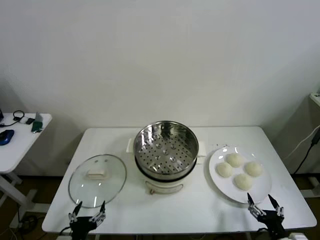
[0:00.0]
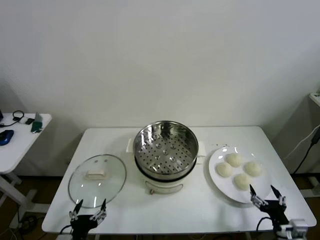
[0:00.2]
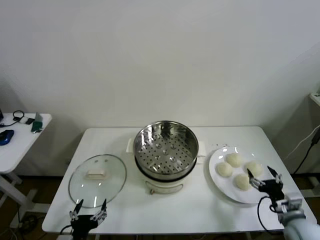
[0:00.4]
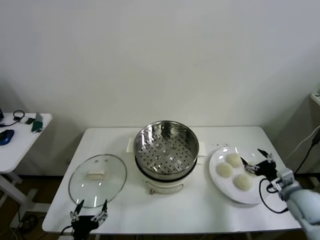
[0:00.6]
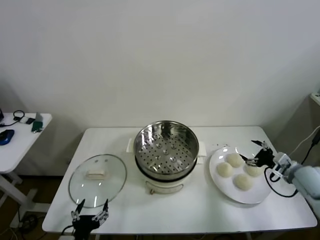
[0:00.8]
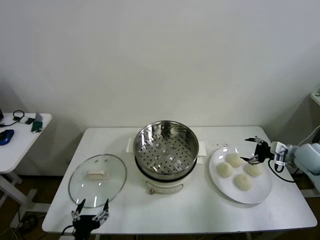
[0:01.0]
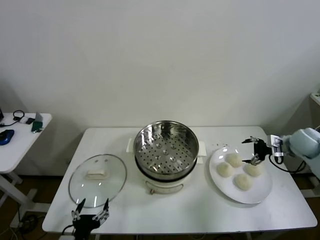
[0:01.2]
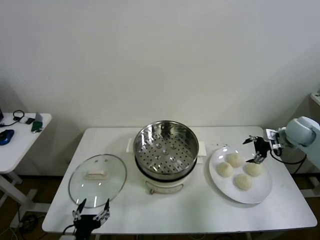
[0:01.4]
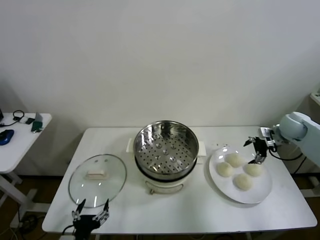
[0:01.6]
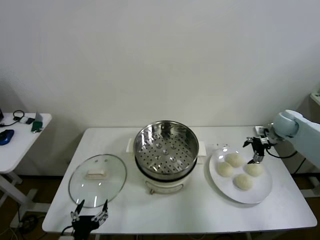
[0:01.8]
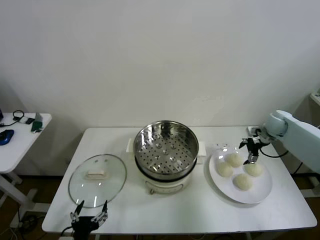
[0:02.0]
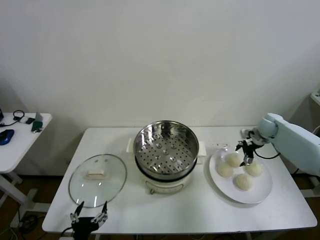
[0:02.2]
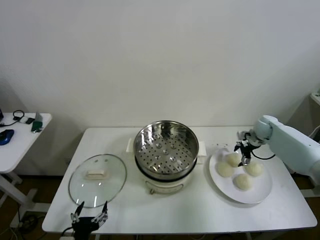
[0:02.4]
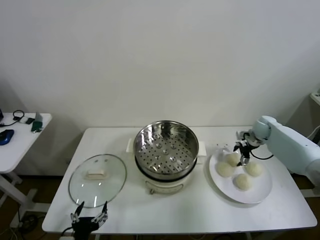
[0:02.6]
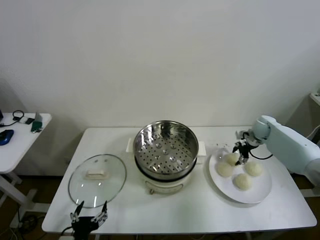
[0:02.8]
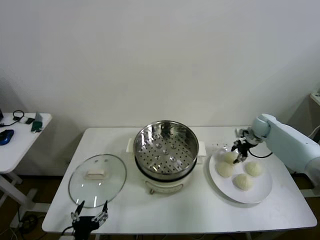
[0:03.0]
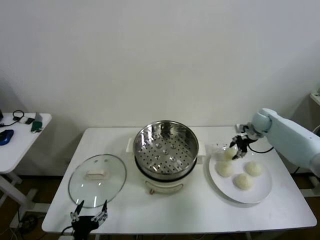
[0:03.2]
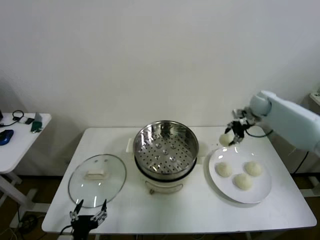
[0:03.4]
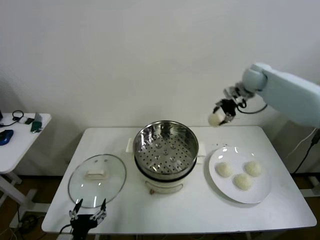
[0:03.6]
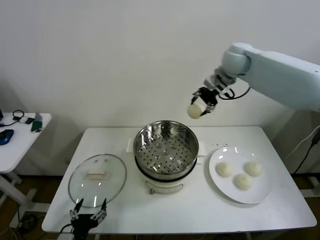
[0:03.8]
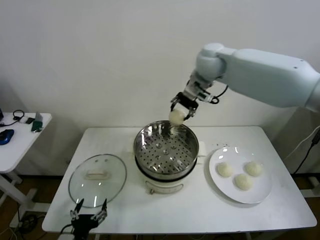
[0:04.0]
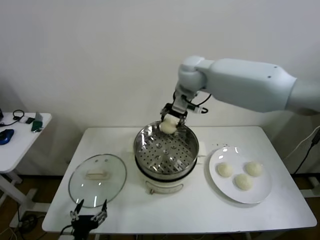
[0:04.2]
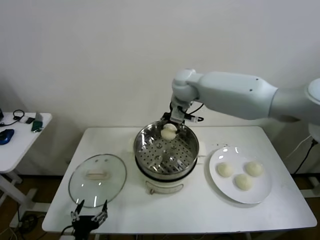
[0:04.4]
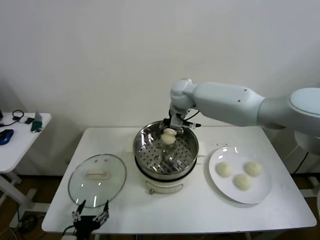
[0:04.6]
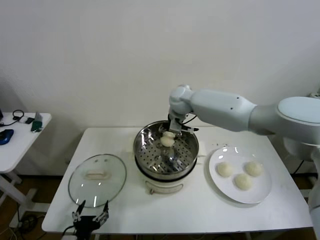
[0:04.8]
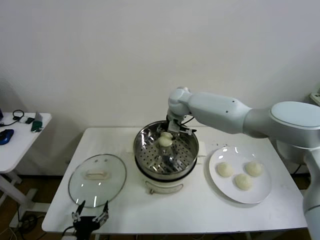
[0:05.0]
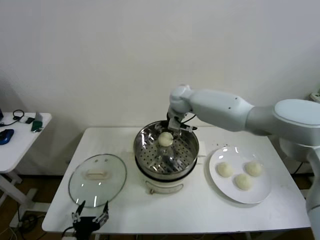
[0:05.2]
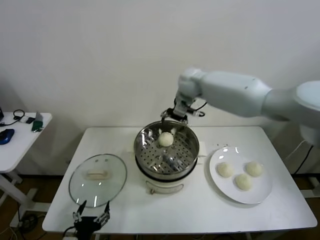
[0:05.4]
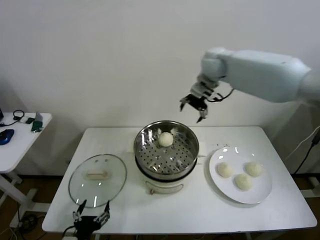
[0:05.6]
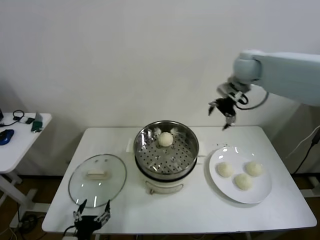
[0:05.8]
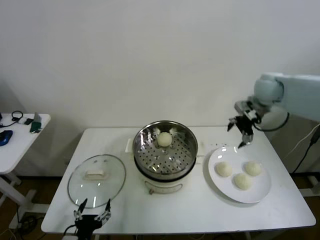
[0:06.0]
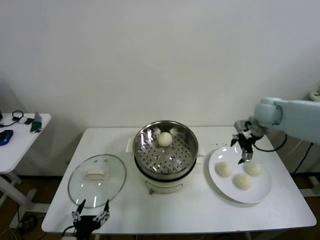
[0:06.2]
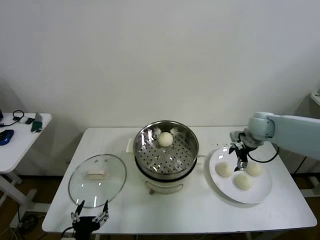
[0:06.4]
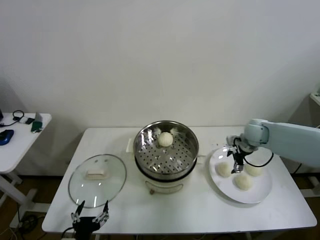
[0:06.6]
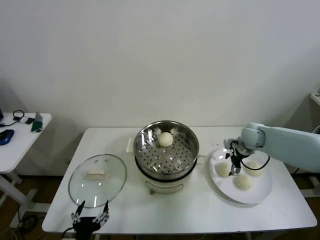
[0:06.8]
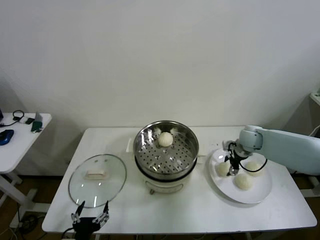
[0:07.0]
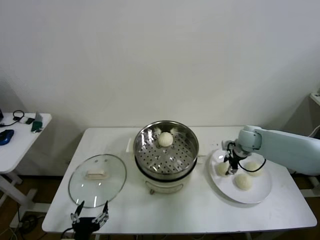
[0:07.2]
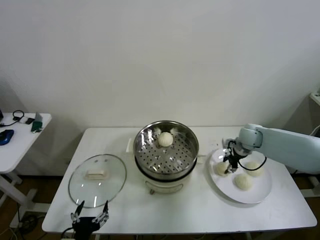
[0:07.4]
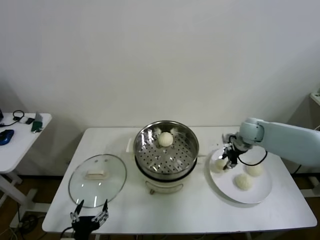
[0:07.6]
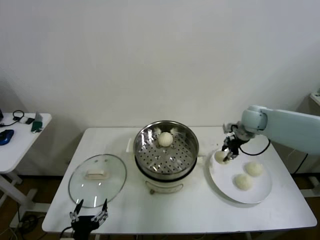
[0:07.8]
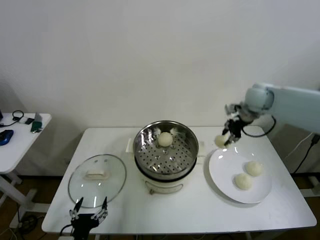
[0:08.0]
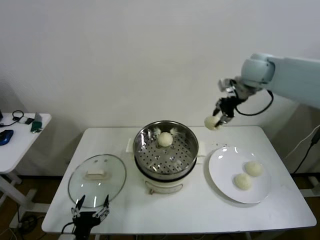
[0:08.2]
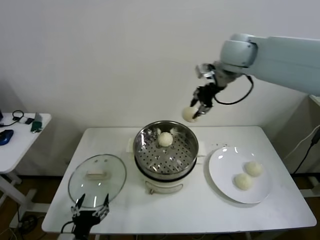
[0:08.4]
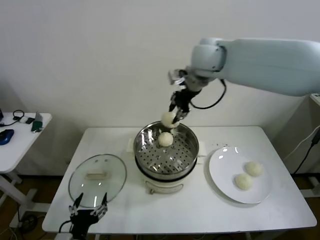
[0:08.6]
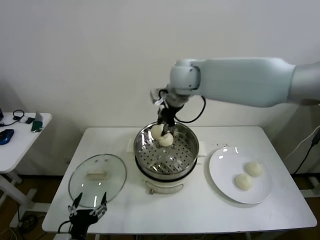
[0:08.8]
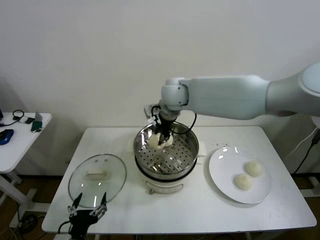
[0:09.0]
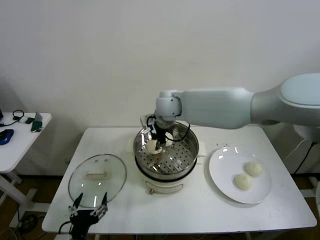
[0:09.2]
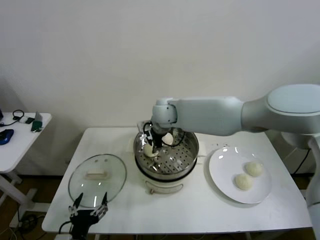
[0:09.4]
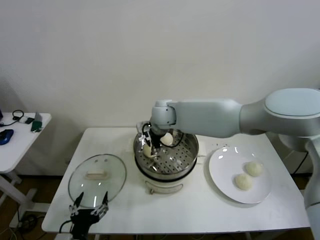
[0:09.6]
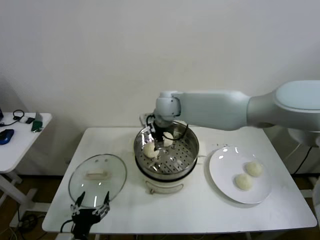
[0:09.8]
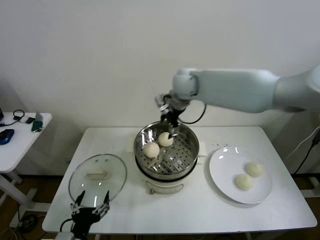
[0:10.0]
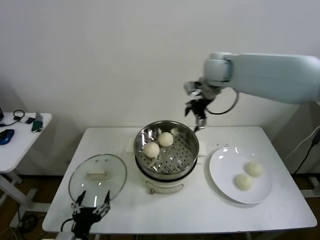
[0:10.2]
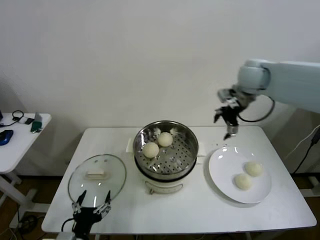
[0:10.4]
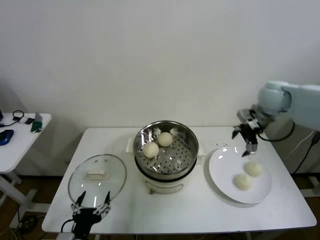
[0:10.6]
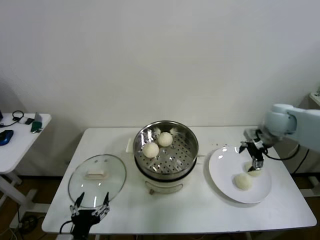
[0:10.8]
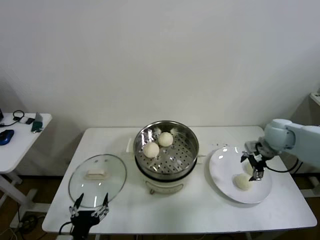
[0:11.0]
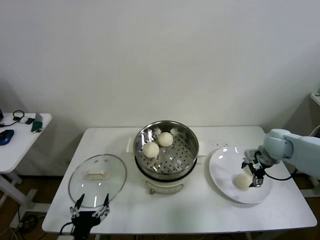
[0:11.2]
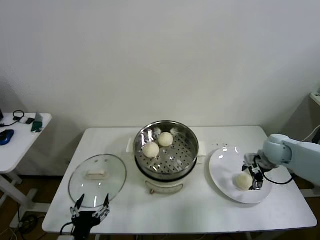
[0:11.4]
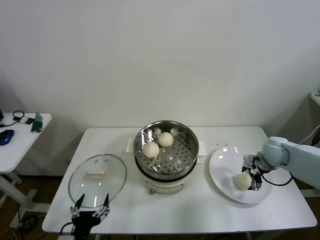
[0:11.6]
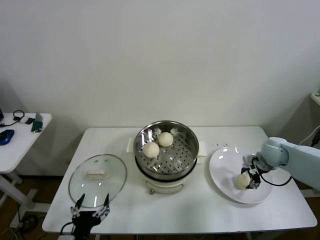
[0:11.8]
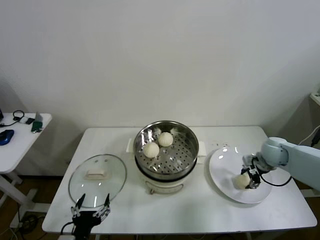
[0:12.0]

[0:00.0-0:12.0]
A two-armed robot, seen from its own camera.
Step, 0:00.0 to 0:02.8: Grasp the baozi in the plate with right gripper.
Step, 0:03.0 to 0:05.2: Place the baozi on the steamer with right gripper.
Step, 0:05.4 to 0:07.2: Grasp the baozi in the plate with right gripper.
Step, 0:07.4 to 0:09.6: Place the baozi on the steamer with right gripper.
Step, 0:09.8 to 0:12.0: Grasp the baozi in the plate with right gripper.
0:01.6 to 0:03.0: The right gripper heads forward and downward, covering some 10 cm, and closes.
0:03.0 to 0:04.4: The right gripper shifts some 40 cm to the left and upward.
0:04.4 to 0:06.0: The right gripper is displaced to the right by about 25 cm, and opens.
0:06.0 to 0:07.6: The right gripper shifts about 15 cm downward, and closes.
0:07.6 to 0:09.0: The right gripper shifts about 35 cm to the left and upward.
0:09.0 to 0:10.4: The right gripper moves to the right, some 25 cm, and opens its fingers.
0:10.4 to 0:12.0: The right gripper shifts about 25 cm downward and to the right, and closes its fingers.

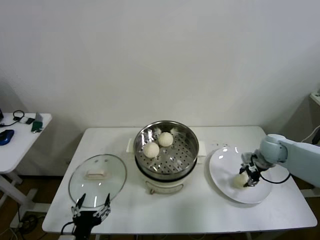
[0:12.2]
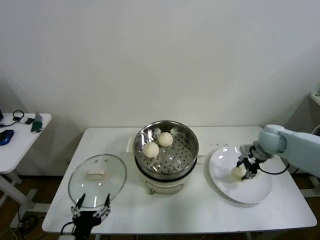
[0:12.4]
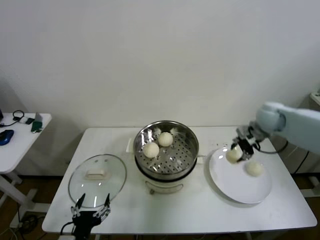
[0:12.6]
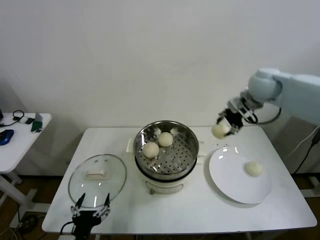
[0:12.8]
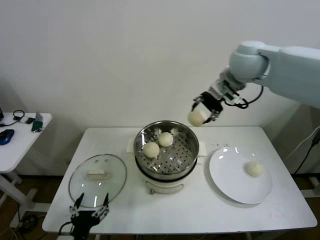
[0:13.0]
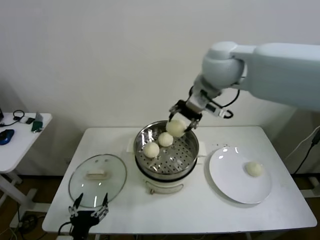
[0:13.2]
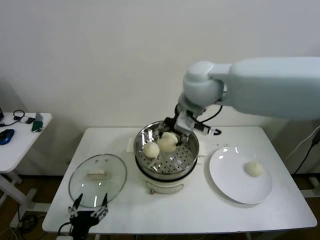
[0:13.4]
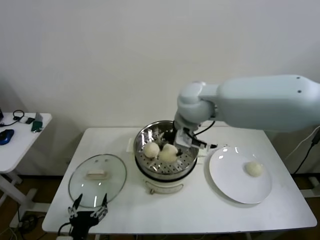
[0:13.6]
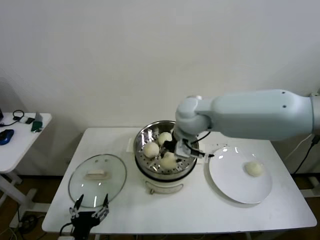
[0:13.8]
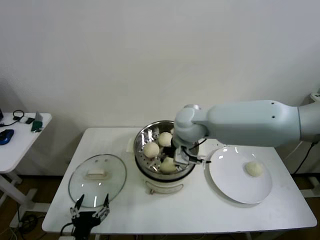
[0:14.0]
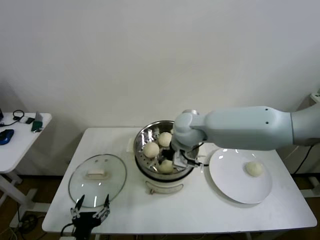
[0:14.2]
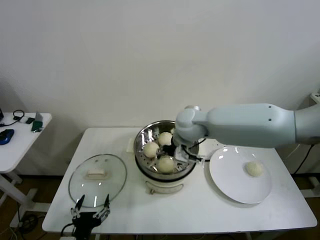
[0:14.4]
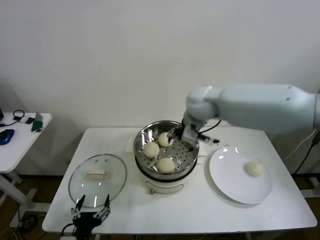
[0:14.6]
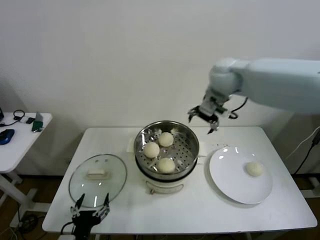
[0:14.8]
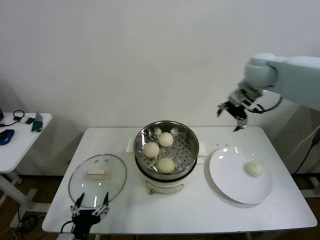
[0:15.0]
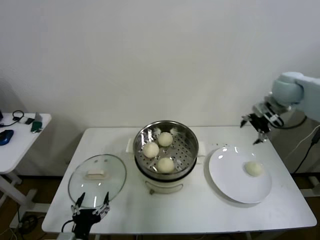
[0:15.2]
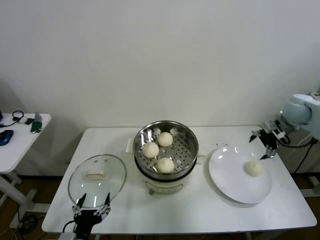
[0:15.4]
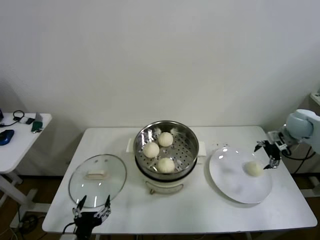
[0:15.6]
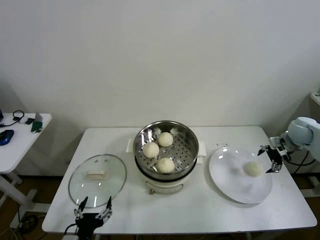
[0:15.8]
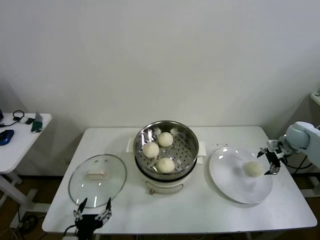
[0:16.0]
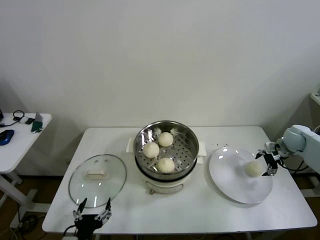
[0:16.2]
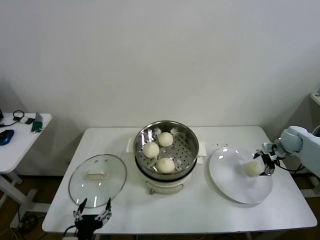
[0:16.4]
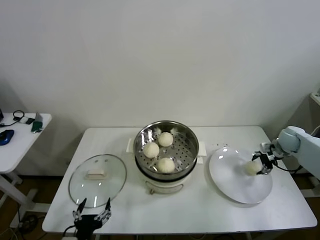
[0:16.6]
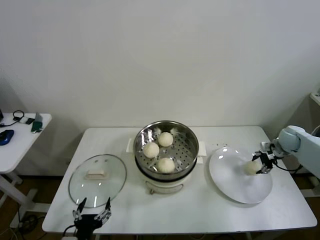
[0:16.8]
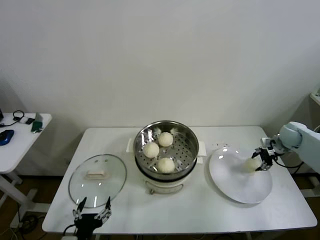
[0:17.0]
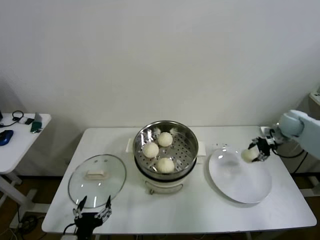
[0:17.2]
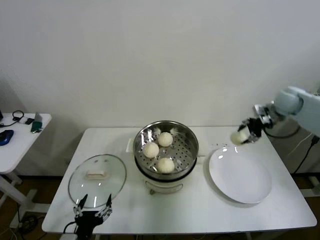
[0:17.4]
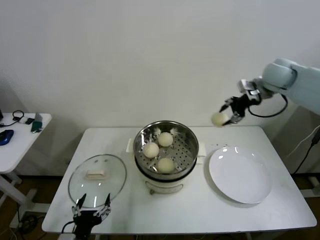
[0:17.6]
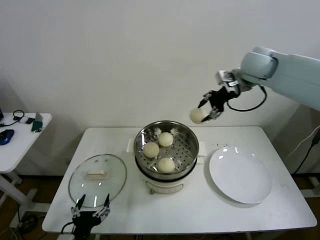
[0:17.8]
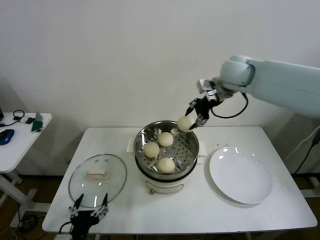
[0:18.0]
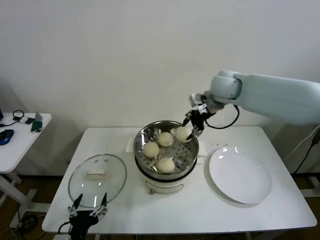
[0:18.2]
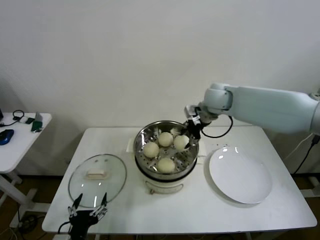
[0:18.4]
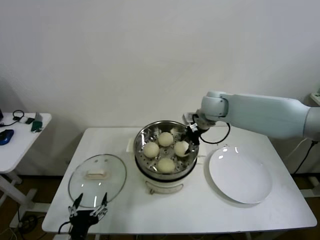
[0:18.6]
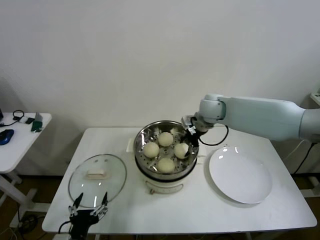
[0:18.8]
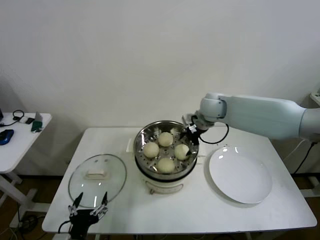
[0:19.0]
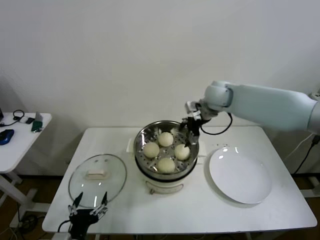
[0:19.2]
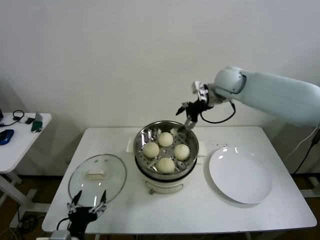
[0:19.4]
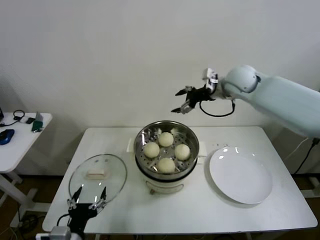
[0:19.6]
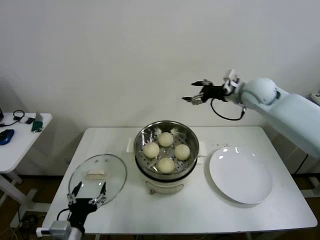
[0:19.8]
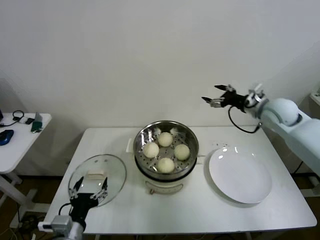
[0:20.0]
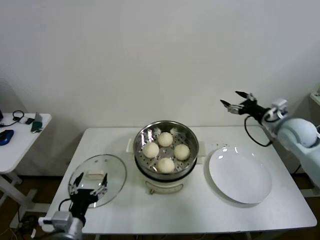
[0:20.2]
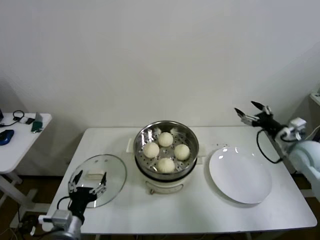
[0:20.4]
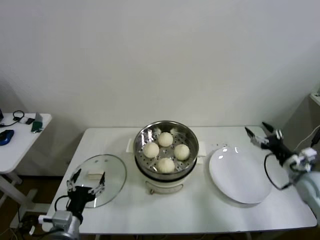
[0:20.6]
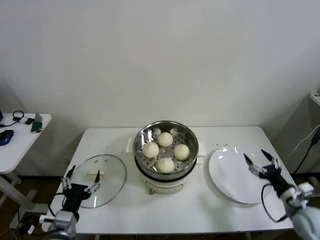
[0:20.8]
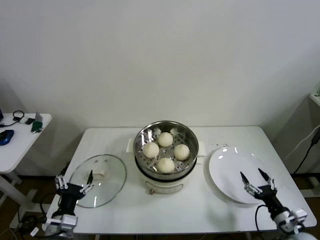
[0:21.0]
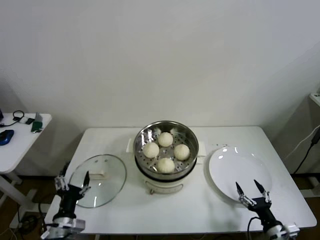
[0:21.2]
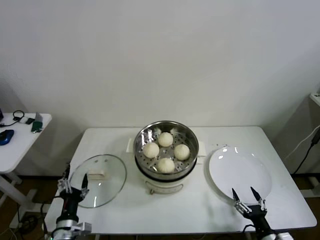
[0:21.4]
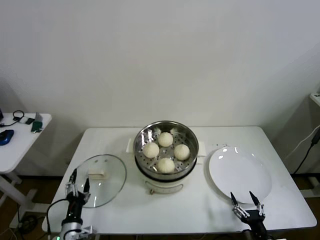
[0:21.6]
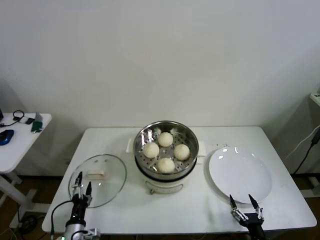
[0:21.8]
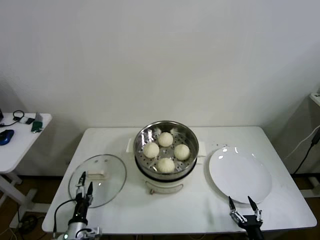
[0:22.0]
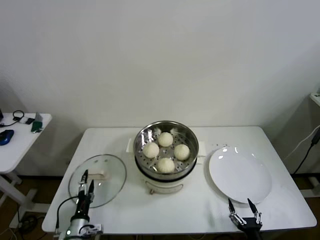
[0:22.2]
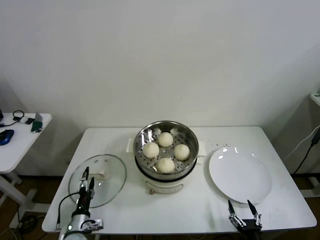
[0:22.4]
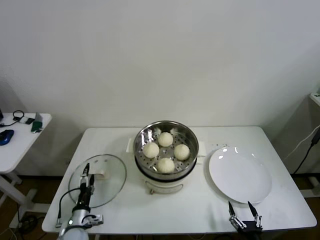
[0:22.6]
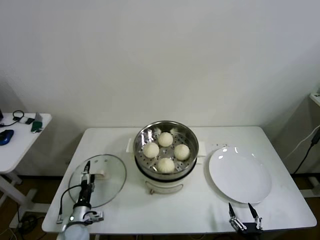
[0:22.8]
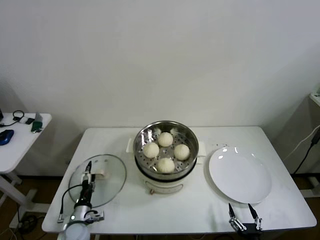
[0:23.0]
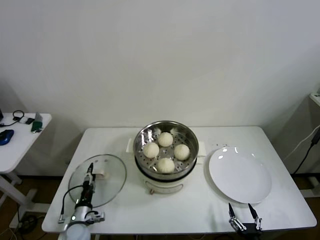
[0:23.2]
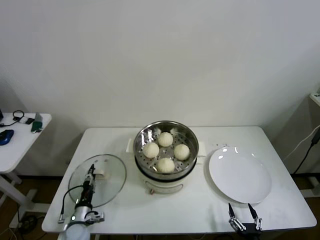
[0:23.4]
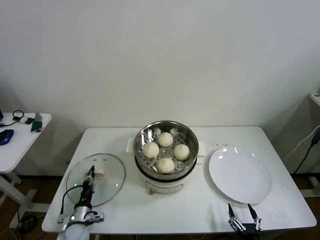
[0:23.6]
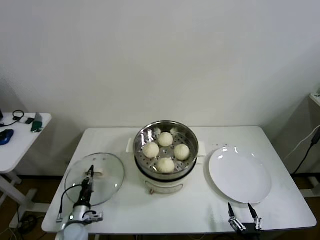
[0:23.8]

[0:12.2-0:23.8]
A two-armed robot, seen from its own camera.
Step, 0:12.2 to 0:14.2: Place the baozi on the steamer with right gripper.
Step, 0:14.4 to 0:16.8: Grasp the baozi in the plate with right gripper.
Step, 0:17.0 to 0:18.8: Place the baozi on the steamer with right gripper.
Step, 0:19.0 to 0:23.6: Grasp the pot lid with left gripper.
0:12.2 to 0:13.6: The right gripper moves to the left and upward, about 40 cm.
0:13.6 to 0:15.0: The right gripper is displaced to the right and forward by some 25 cm, and opens up.
0:15.0 to 0:16.6: The right gripper heads downward and to the right, covering approximately 35 cm.
0:16.6 to 0:18.0: The right gripper shifts about 40 cm to the left and upward.
0:18.0 to 0:19.4: The right gripper goes downward and returns, some 15 cm each way, and opens up.
0:19.4 to 0:21.0: The left gripper is displaced forward by approximately 5 cm. Meanwhile the right gripper is displaced backward, downward and to the right by about 60 cm.
0:21.0 to 0:22.4: The right gripper heads to the left, backward and downward, covering roughly 15 cm. The left gripper moves downward, some 15 cm.
0:22.4 to 0:23.8: The left gripper closes up.
